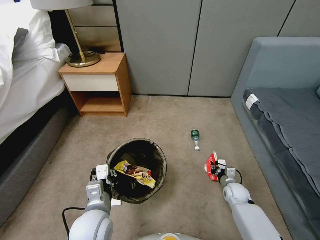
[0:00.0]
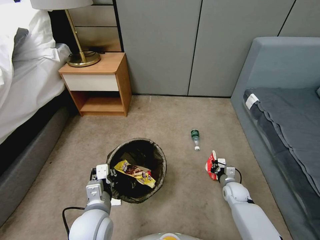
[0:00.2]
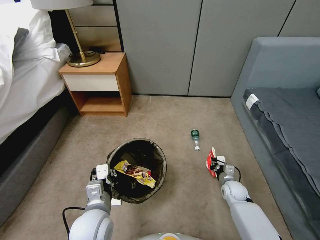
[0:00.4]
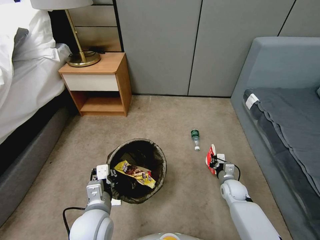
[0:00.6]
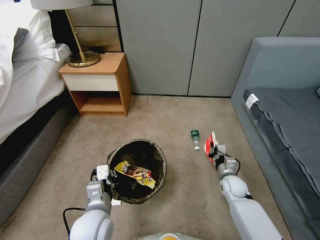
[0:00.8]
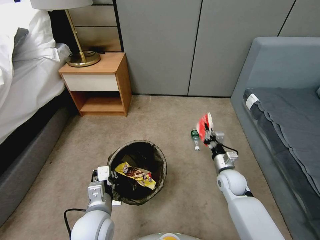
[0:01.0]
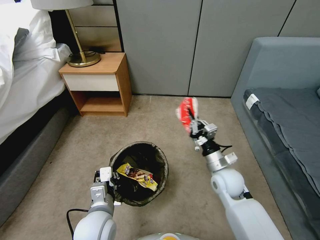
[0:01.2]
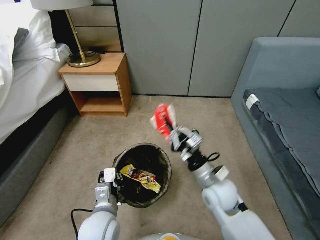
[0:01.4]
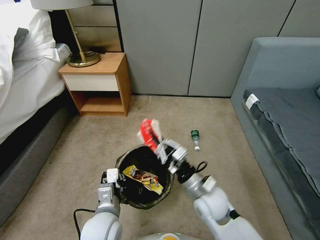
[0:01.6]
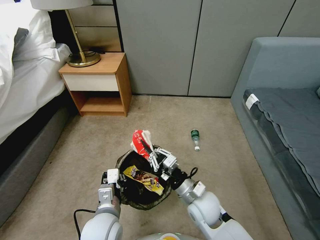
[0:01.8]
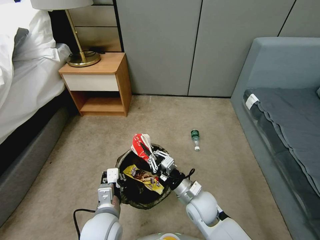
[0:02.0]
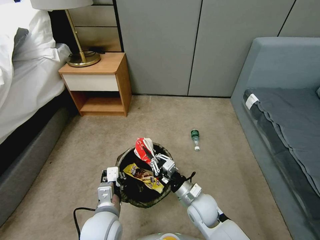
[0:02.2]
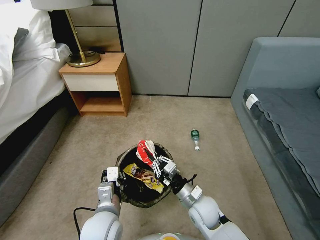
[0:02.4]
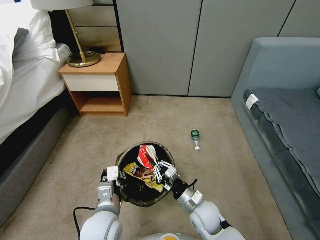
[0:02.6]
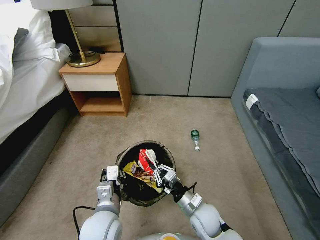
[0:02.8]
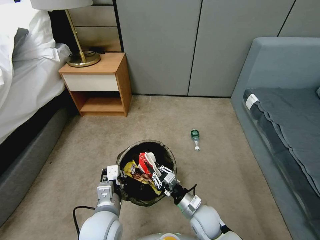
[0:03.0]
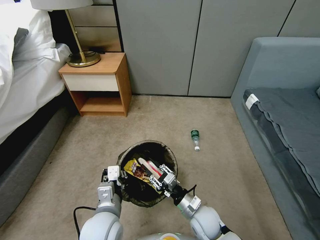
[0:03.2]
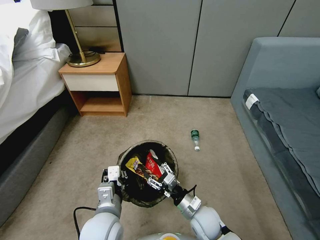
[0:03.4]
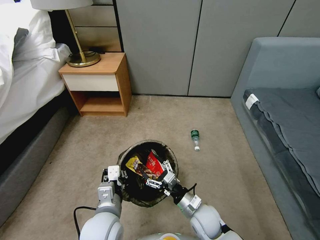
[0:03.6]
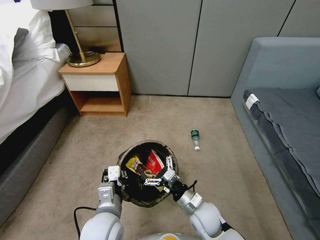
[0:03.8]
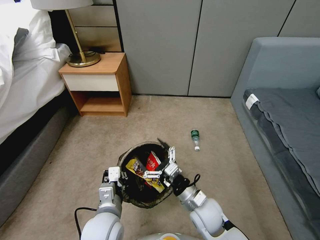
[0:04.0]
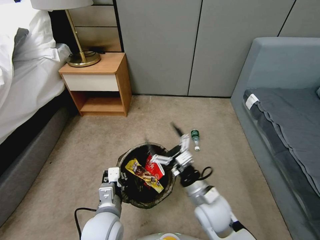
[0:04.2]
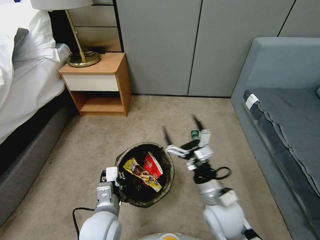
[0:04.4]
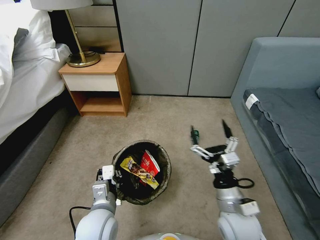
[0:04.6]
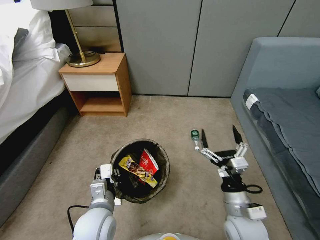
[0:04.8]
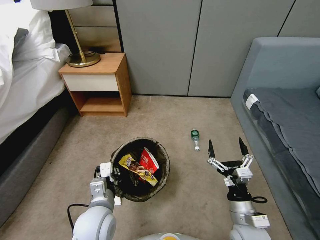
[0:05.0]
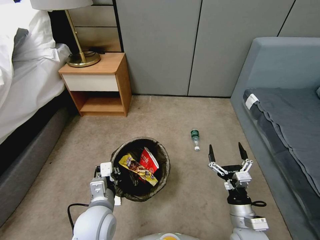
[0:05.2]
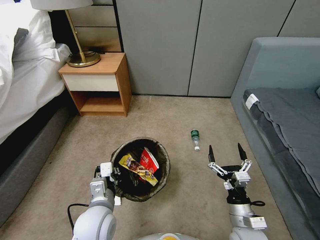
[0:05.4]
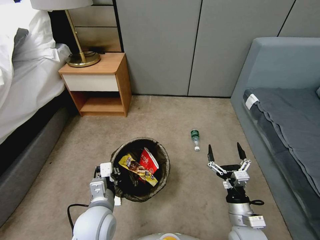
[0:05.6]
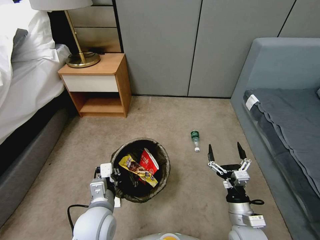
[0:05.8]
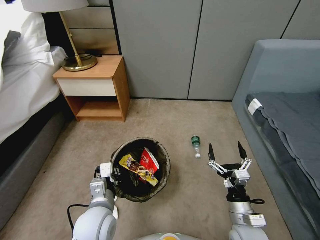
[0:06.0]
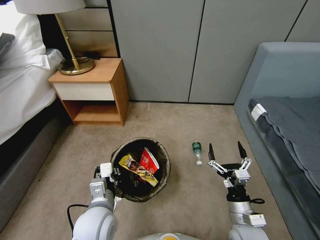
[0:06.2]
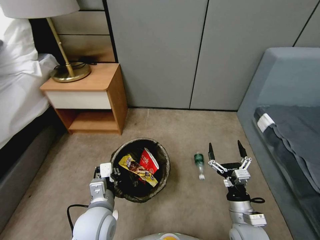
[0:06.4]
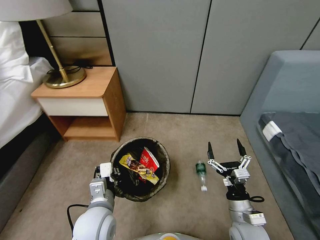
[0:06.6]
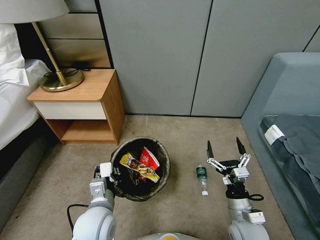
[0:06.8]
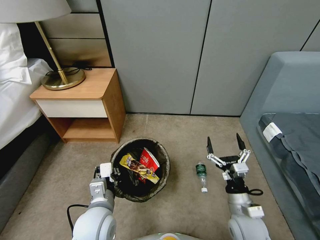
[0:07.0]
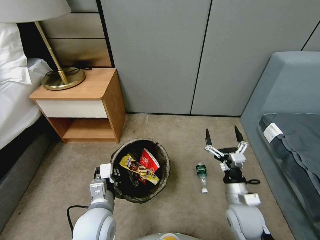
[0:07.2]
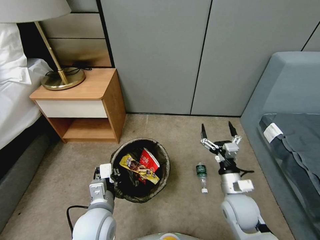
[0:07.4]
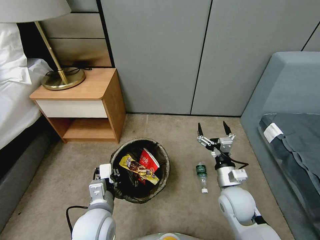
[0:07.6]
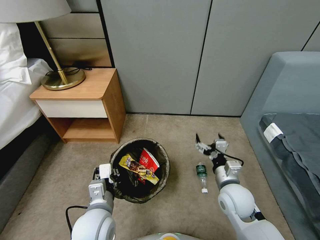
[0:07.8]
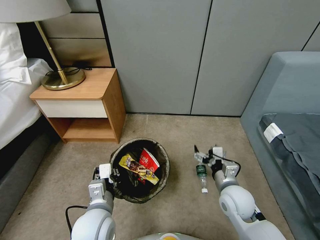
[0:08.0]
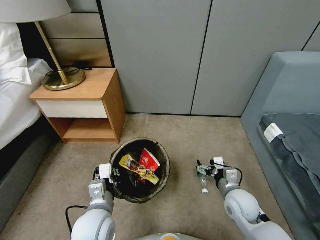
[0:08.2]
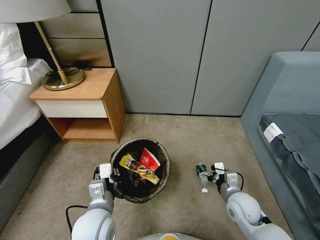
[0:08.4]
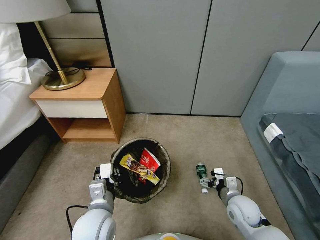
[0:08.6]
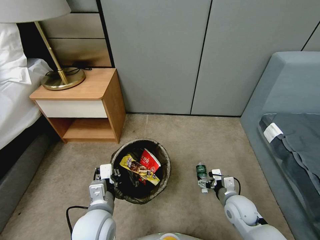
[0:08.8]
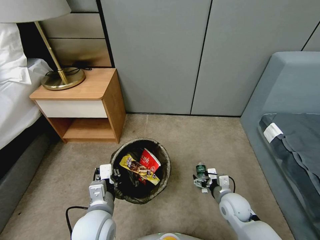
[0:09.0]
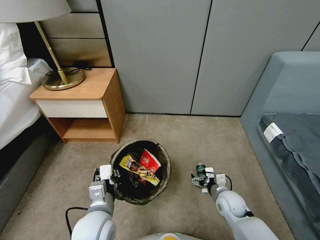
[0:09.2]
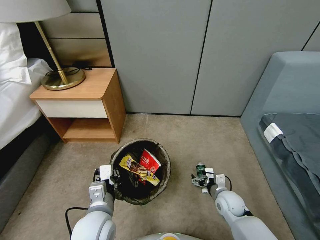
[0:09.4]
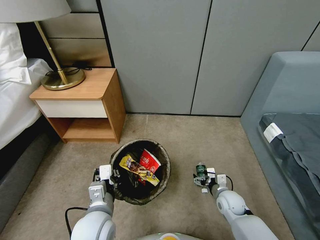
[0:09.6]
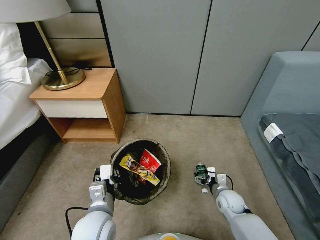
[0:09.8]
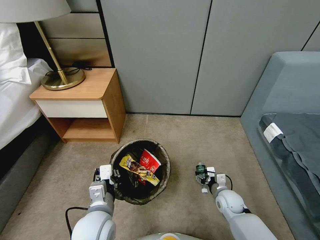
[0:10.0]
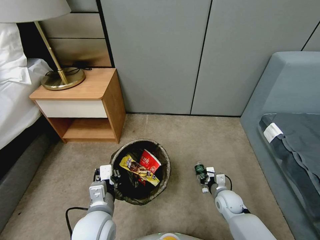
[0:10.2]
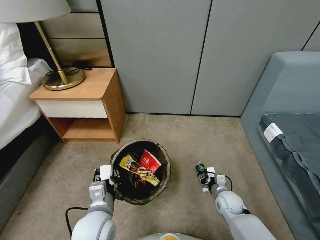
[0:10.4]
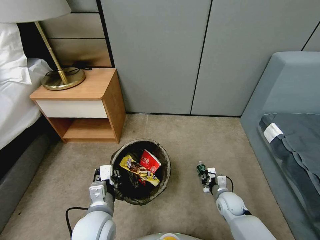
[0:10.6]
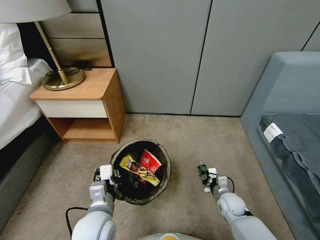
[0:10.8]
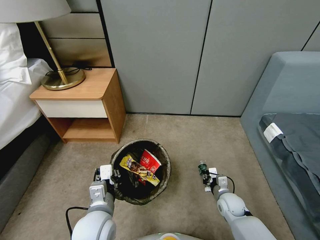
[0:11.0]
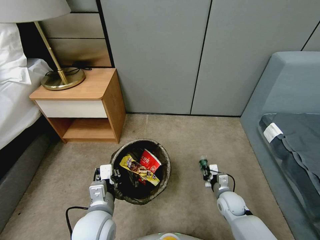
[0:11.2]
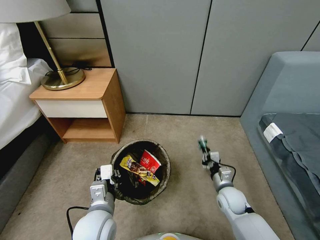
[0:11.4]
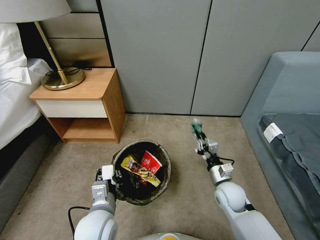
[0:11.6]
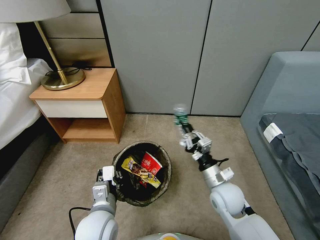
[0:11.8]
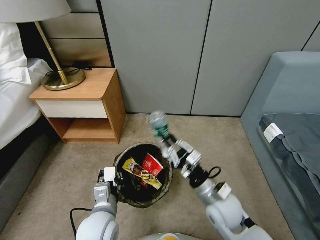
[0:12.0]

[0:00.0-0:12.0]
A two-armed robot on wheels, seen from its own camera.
Task of the whole recording: Pick up the trash bin, then pick up the garbage from the floor and place it into the trash bin.
0:00.0 to 0:01.6: The right gripper travels upward and to the left by approximately 25 cm.
0:01.6 to 0:03.0: The right gripper travels downward by approximately 15 cm.
0:03.0 to 0:04.4: The right gripper heads upward, covering approximately 15 cm, and opens its fingers.
0:04.4 to 0:06.0: The right gripper goes roughly 10 cm downward and to the right.
0:06.0 to 0:07.6: The right gripper is displaced forward by approximately 10 cm.
0:07.6 to 0:09.0: The right gripper travels downward by about 10 cm.
0:09.0 to 0:10.4: The right gripper travels downward by about 5 cm, and closes its fingers.
0:10.4 to 0:12.0: The right gripper goes approximately 20 cm upward and to the left.

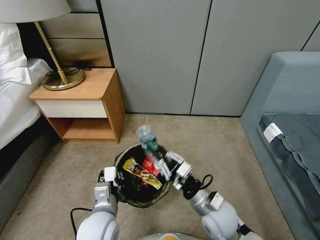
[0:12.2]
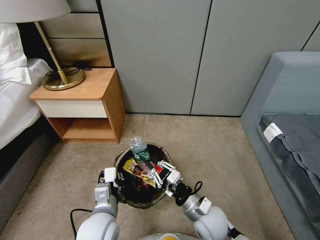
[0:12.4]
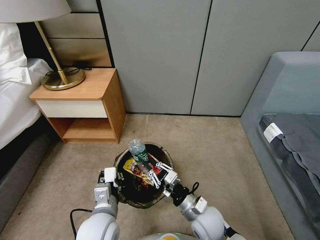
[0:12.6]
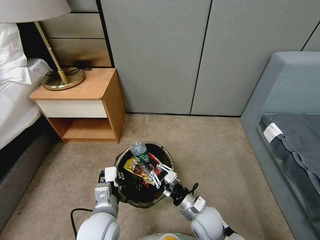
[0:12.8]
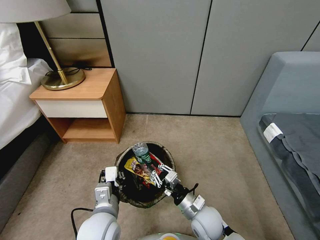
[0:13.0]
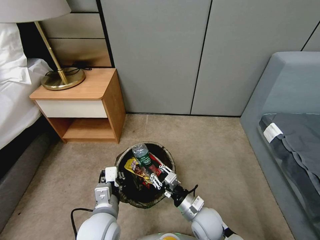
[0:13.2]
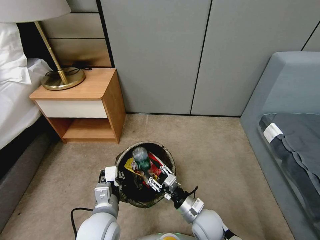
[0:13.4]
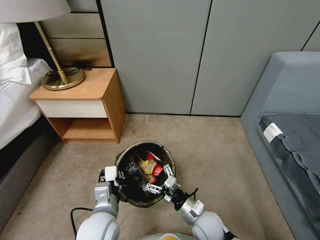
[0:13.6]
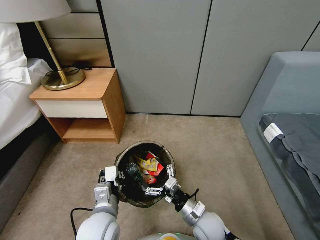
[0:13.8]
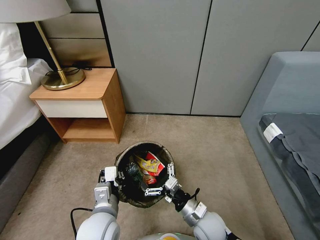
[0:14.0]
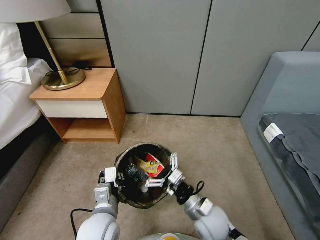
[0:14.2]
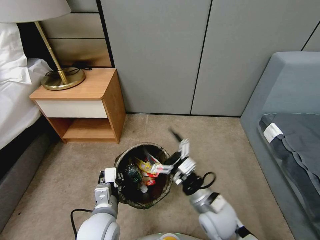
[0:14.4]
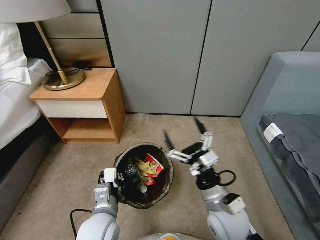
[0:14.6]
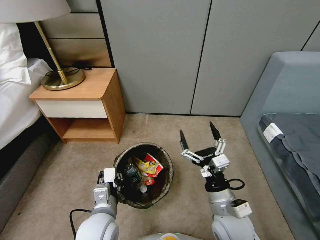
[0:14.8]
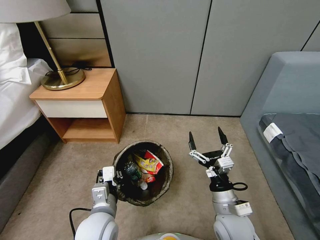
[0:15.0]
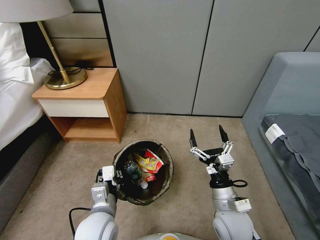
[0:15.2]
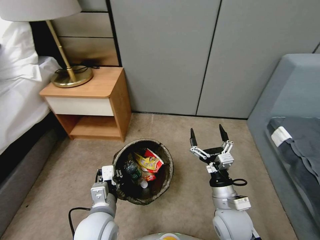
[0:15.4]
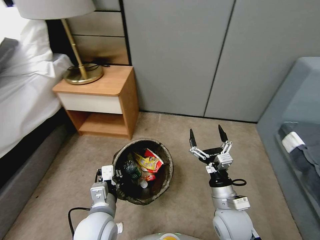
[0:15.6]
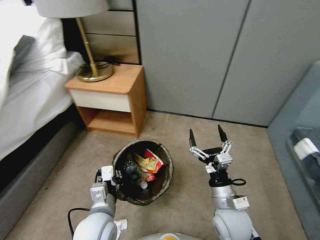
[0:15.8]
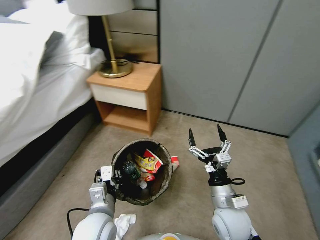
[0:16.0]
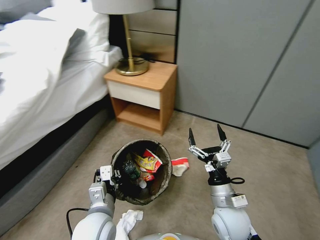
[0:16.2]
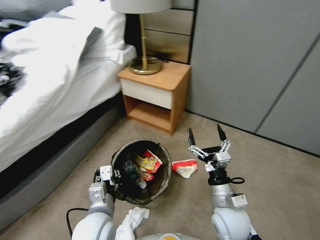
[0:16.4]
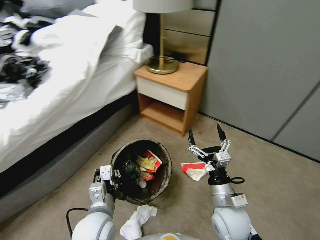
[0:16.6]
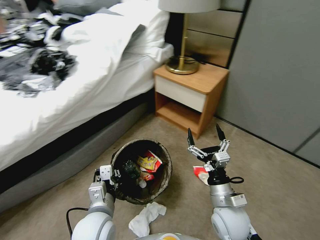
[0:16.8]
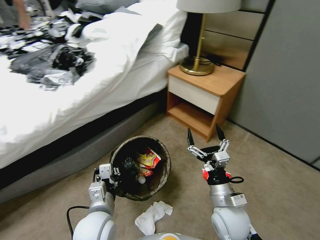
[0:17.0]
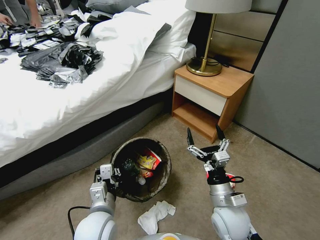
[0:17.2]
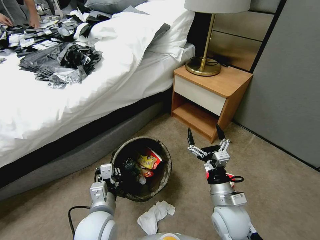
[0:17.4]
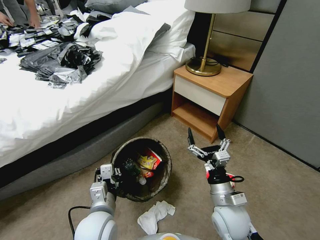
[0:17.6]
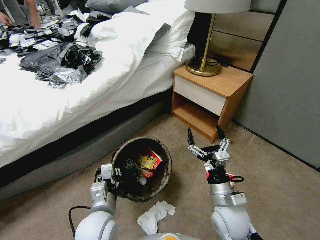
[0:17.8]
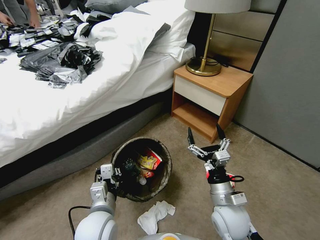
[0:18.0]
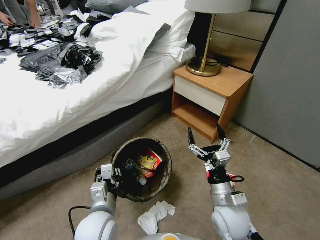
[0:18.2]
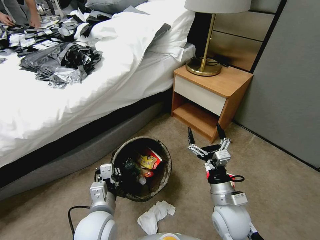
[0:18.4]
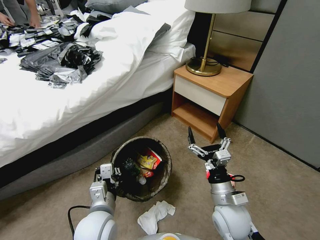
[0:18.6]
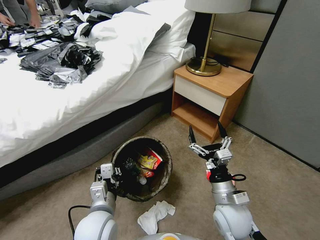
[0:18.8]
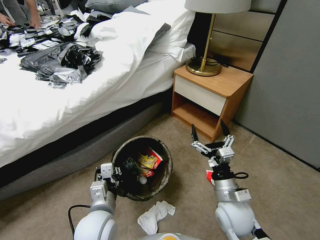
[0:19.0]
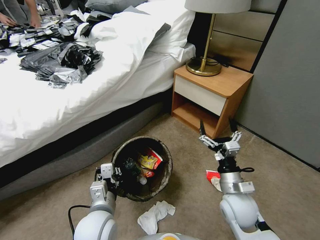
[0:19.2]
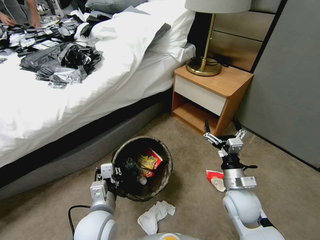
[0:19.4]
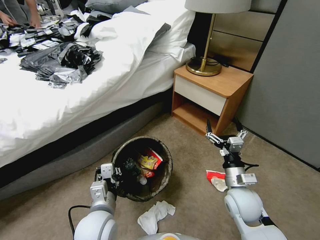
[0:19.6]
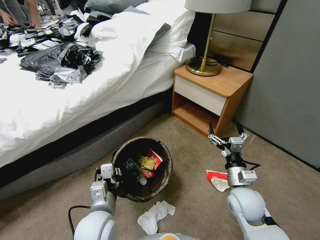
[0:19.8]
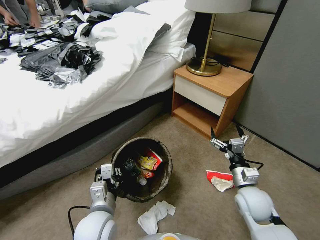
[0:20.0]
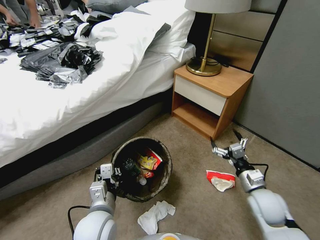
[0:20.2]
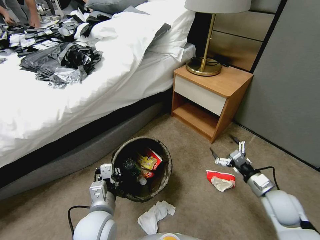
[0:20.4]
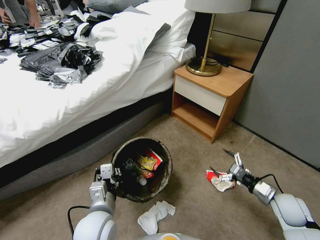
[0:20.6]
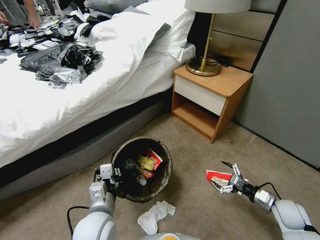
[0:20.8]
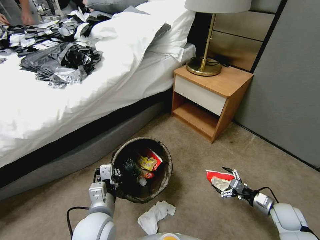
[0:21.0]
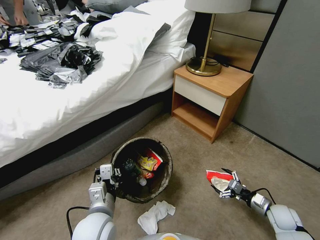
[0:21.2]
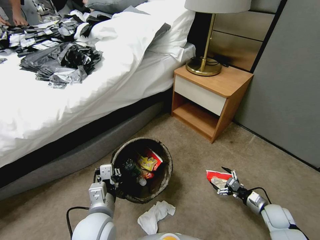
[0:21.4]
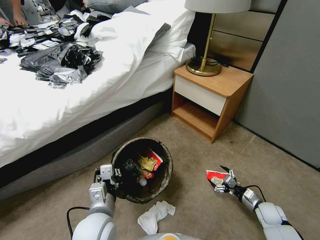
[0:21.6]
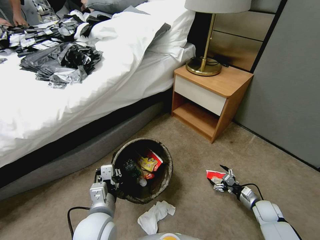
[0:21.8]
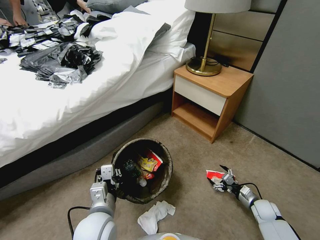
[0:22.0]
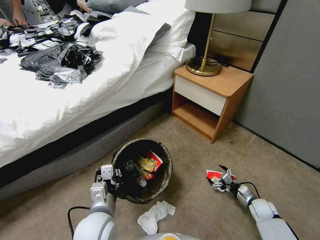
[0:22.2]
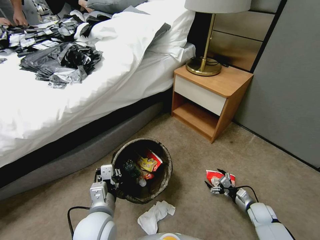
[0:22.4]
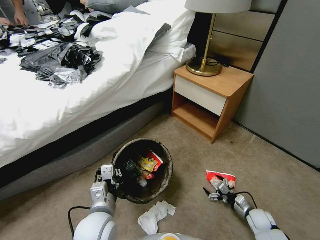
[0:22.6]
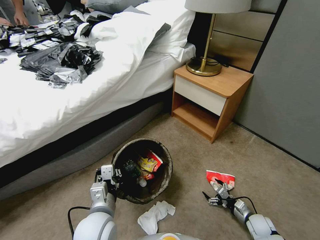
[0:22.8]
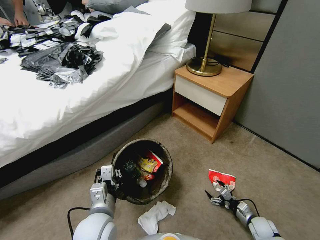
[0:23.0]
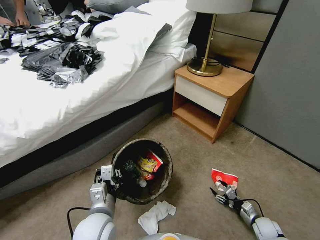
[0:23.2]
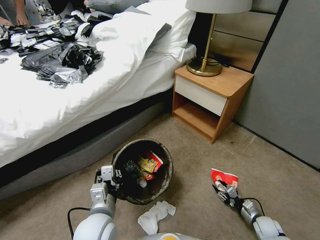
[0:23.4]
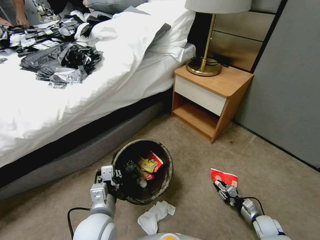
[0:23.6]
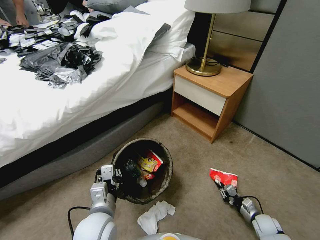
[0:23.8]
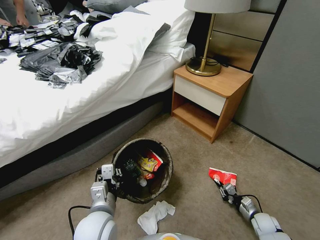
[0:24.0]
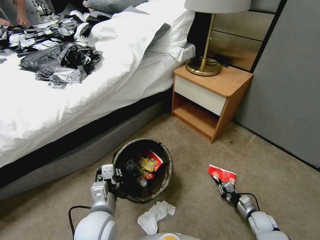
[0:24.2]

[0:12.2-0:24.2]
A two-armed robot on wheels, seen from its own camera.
Task of the whole recording: Pick up the trash bin, then pick up the garbage from the floor and place it into the trash bin.
0:12.2 to 0:13.8: The right gripper heads downward, covering some 10 cm, and opens up.
0:13.8 to 0:15.2: The right gripper travels upward by some 10 cm.
0:18.2 to 0:19.8: The right gripper shifts approximately 5 cm to the right.
0:19.8 to 0:21.2: The right gripper travels to the right and downward by about 25 cm.
0:21.2 to 0:22.6: The right gripper heads downward, covering approximately 5 cm.
0:22.6 to 0:24.2: The right gripper closes its fingers.
